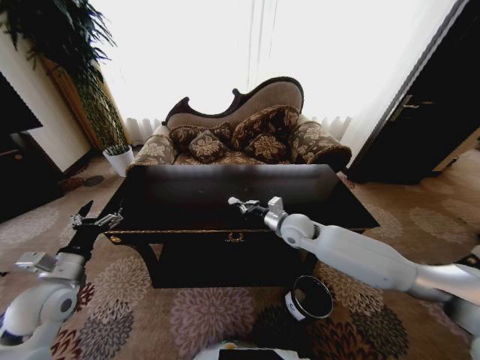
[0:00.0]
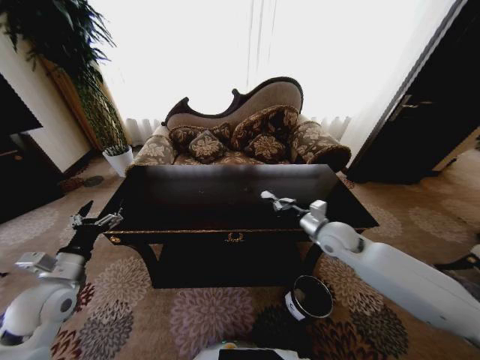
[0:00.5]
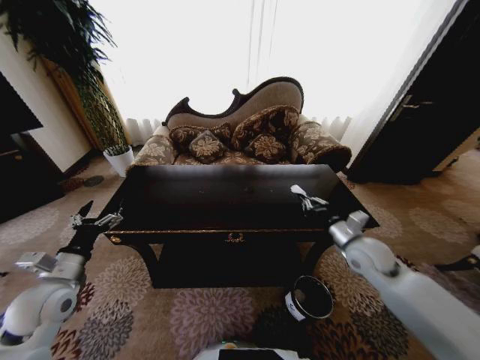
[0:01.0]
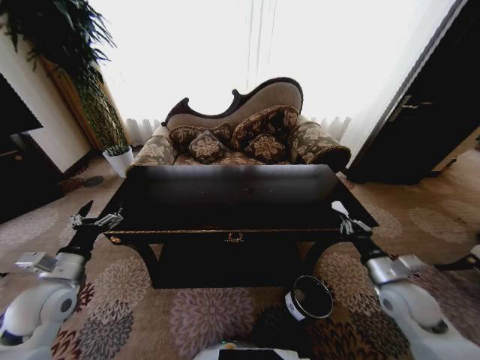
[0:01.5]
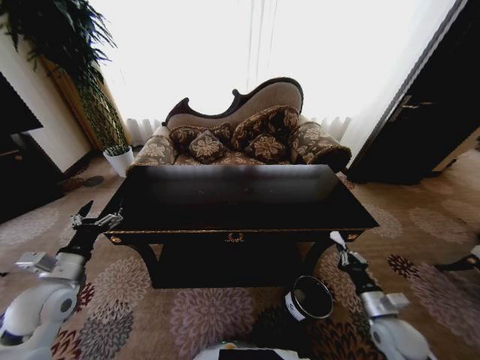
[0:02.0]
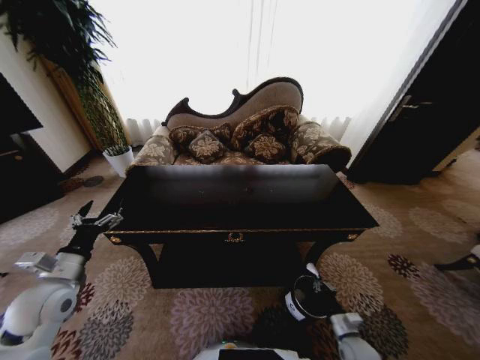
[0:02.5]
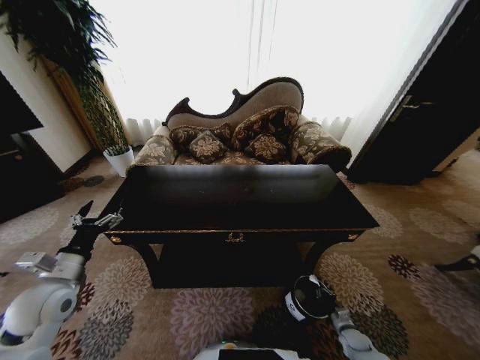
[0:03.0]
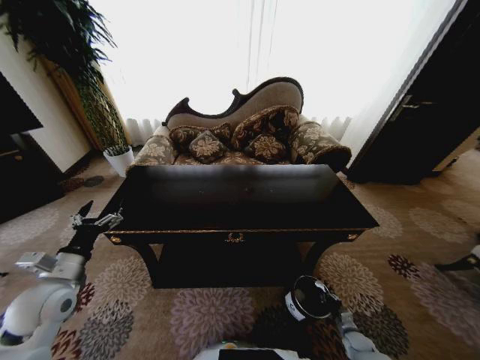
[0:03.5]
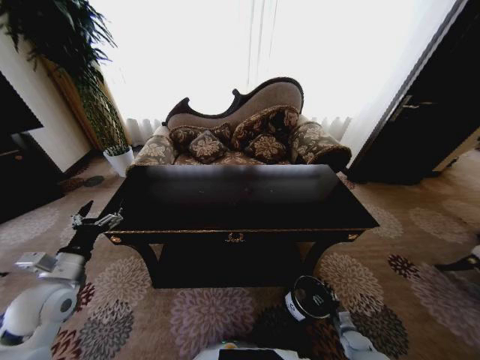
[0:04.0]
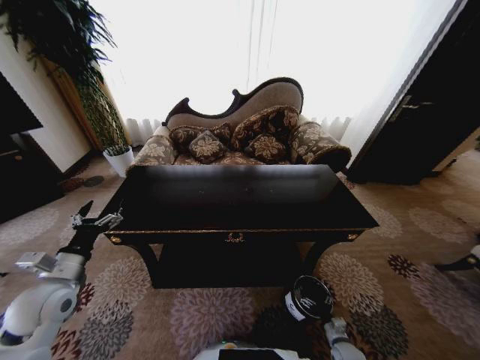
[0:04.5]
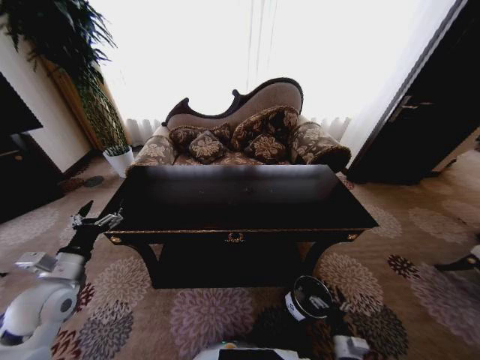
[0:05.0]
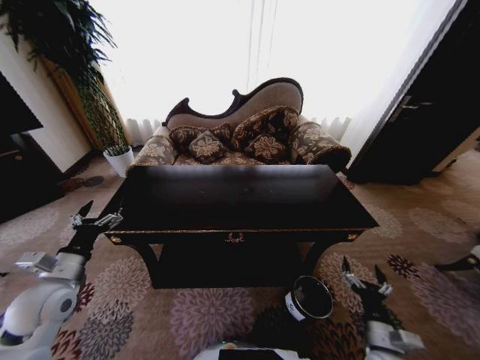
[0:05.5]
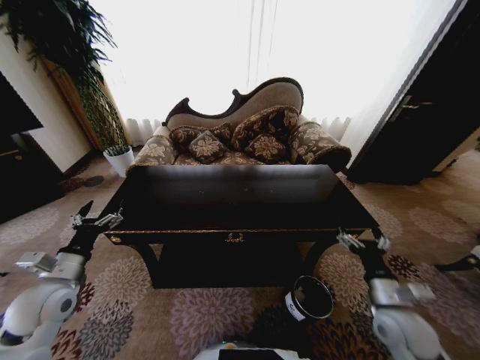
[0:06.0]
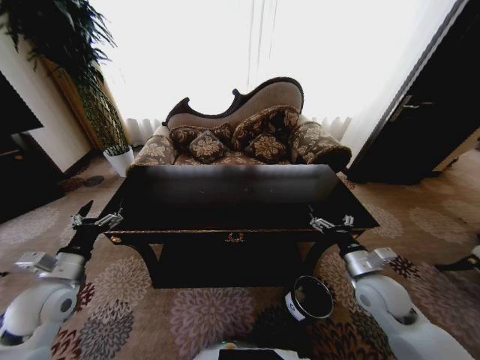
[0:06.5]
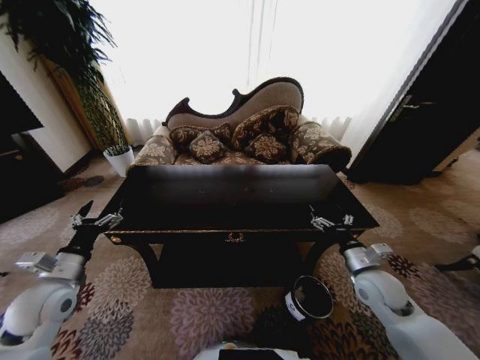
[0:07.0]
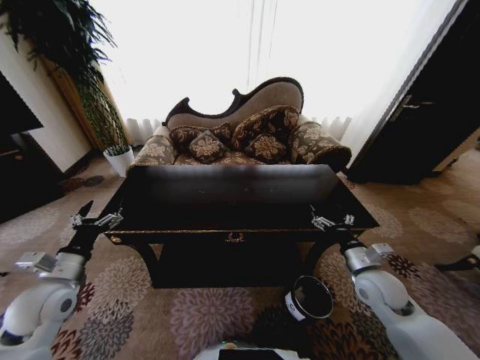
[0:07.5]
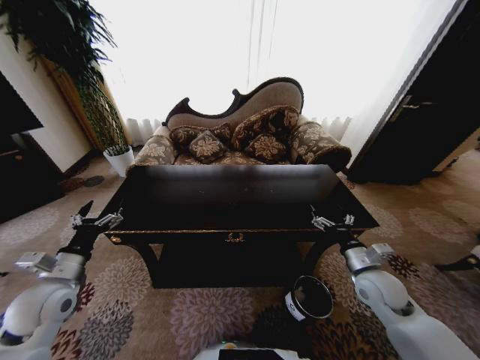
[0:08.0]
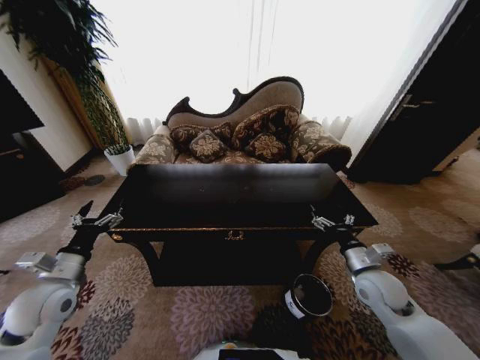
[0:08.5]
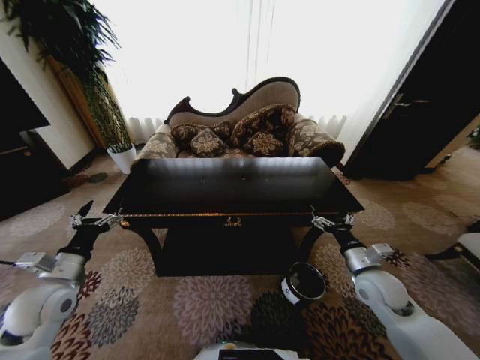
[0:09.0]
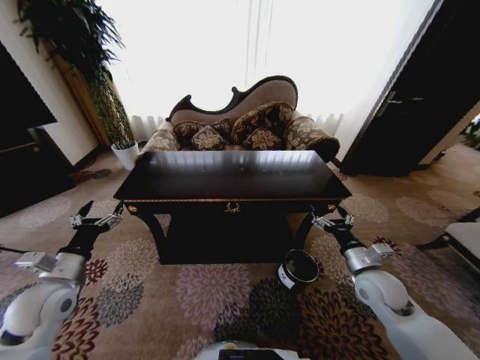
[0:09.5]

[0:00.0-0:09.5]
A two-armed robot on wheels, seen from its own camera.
Task of the whole recording: Move to the front of the table and place the trash on the table into the trash bin.
0:00.0 to 0:02.0: The right gripper heads backward, to the right and downward, covering some 35 cm.
0:02.0 to 0:04.0: The right gripper shifts some 25 cm downward, and opens up.
0:04.0 to 0:05.5: The right gripper moves upward and to the left, approximately 25 cm, and opens.
0:05.5 to 0:07.5: The right gripper is displaced forward and upward by some 20 cm.

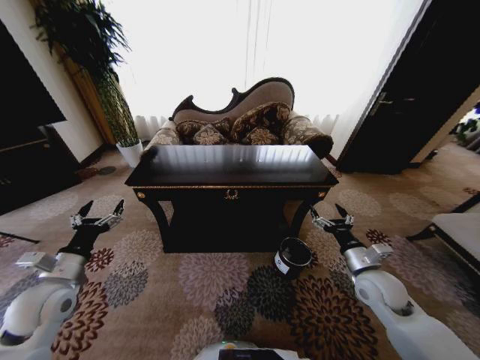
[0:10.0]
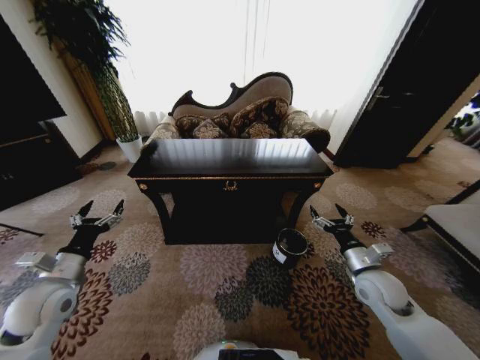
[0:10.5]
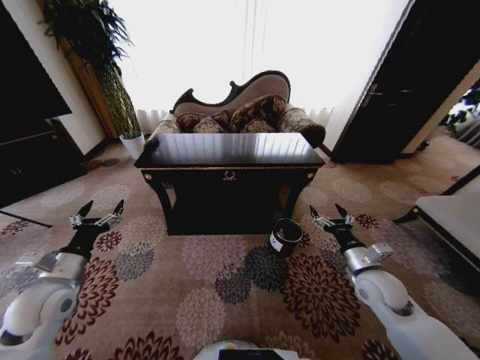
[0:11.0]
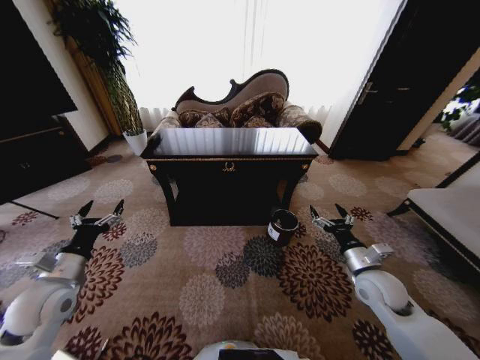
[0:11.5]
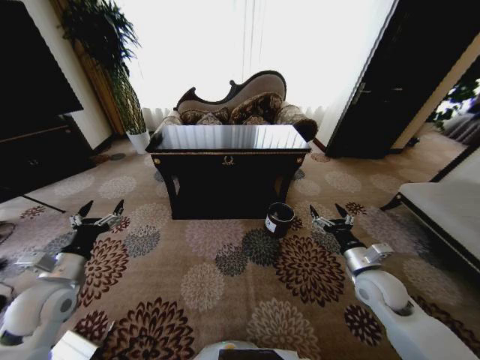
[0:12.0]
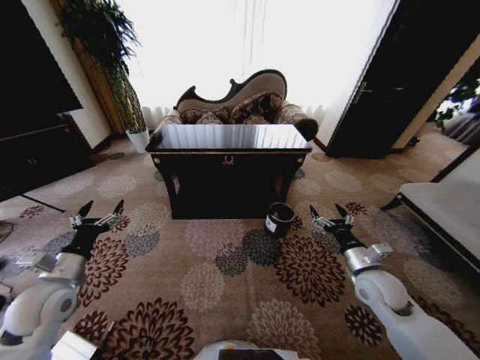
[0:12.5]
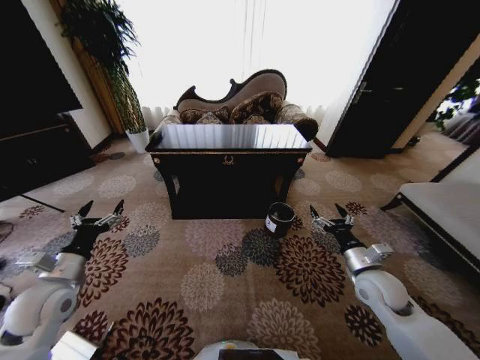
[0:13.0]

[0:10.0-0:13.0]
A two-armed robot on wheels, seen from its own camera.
Task of the whole recording: Move to the front of the table and place the trash on the table into the trash bin.
0:11.5 to 0:13.0: The two grippers keep their place.

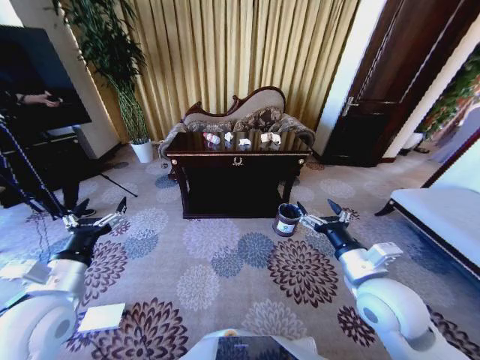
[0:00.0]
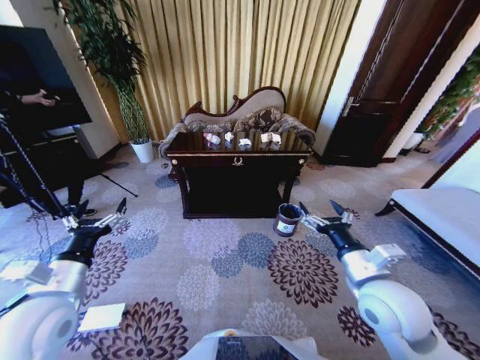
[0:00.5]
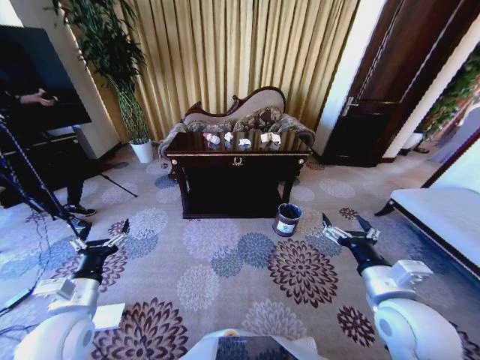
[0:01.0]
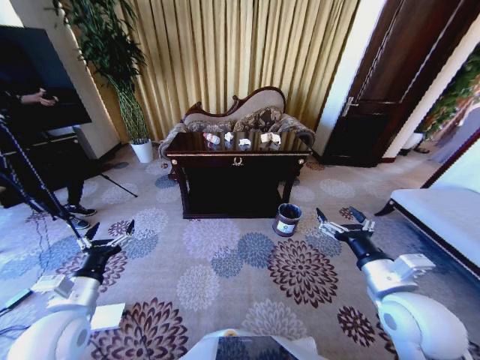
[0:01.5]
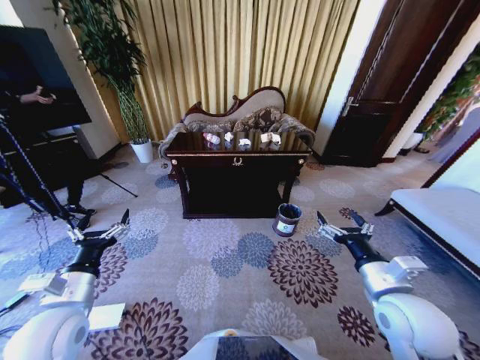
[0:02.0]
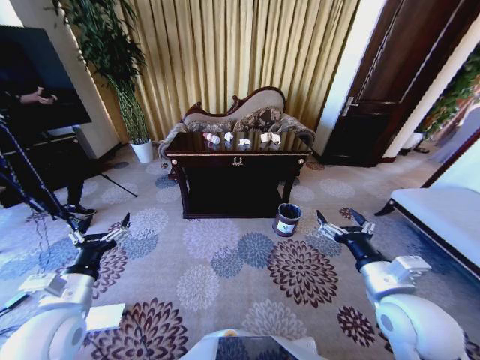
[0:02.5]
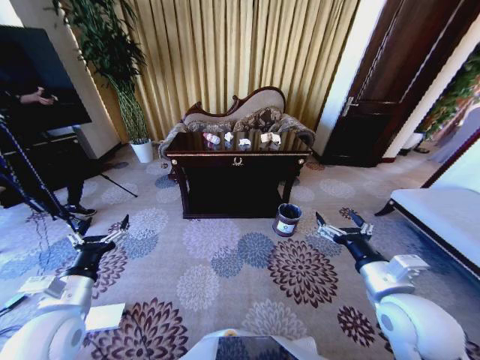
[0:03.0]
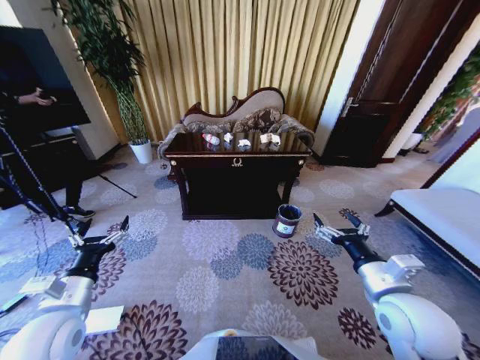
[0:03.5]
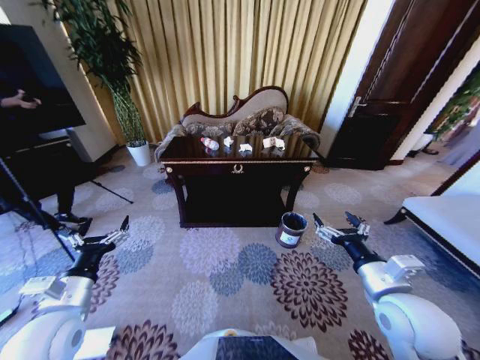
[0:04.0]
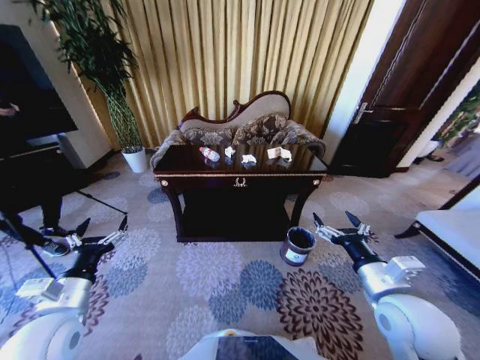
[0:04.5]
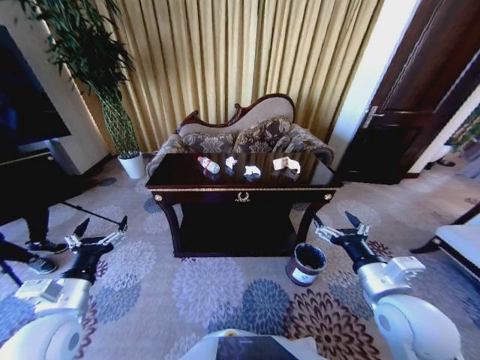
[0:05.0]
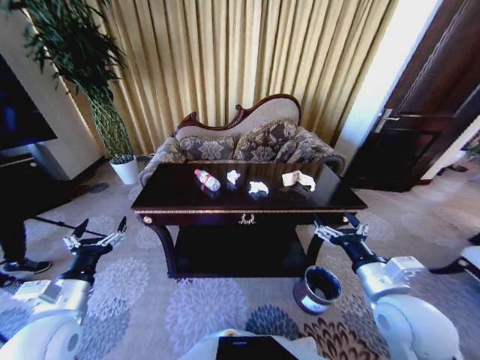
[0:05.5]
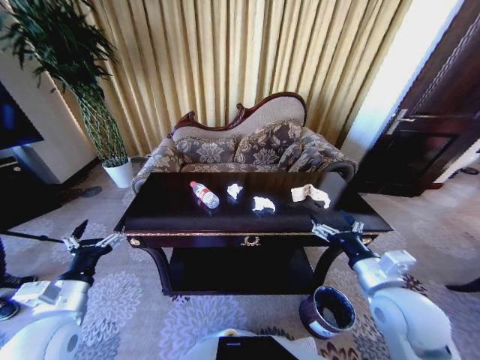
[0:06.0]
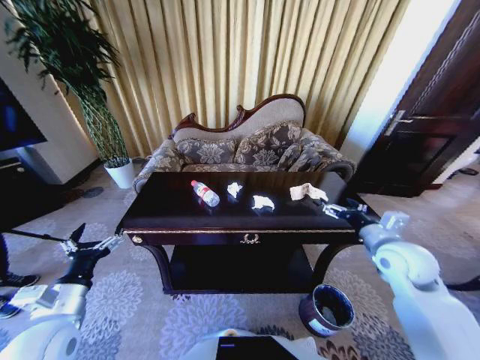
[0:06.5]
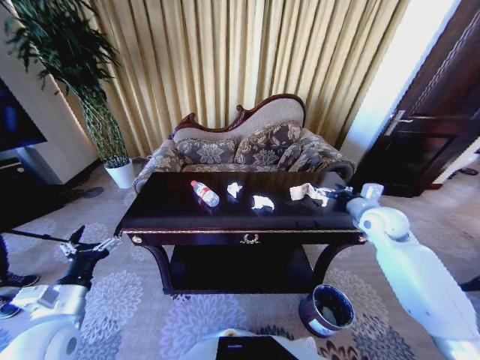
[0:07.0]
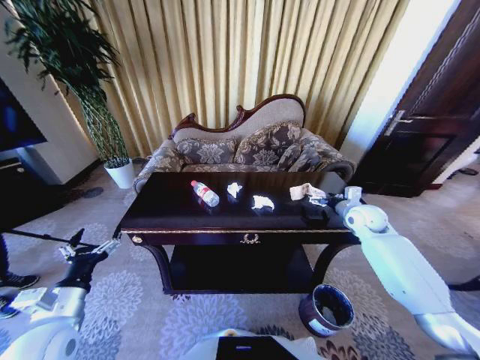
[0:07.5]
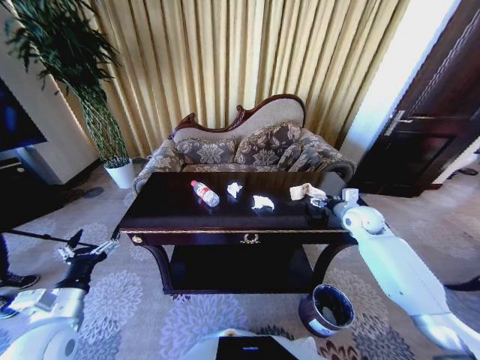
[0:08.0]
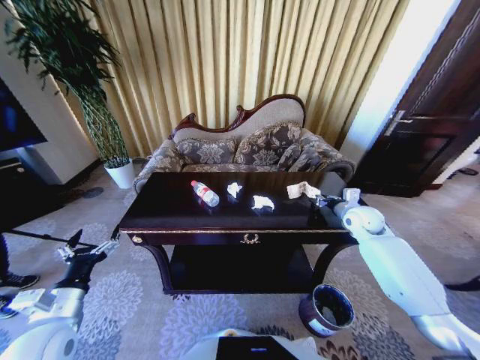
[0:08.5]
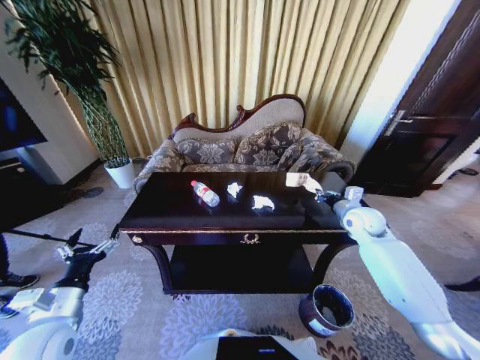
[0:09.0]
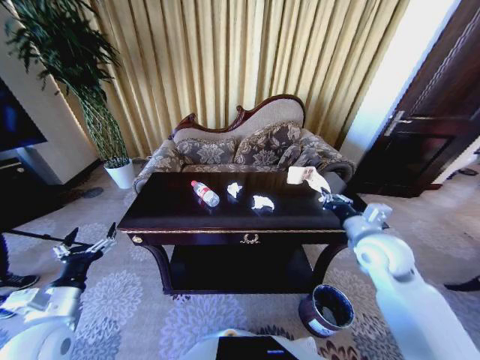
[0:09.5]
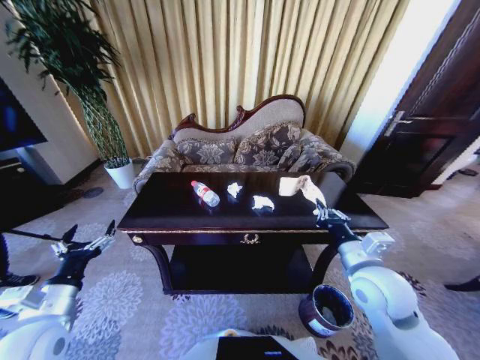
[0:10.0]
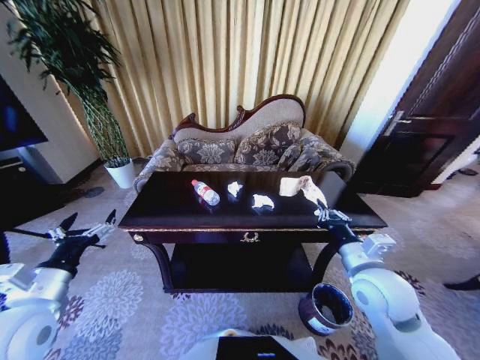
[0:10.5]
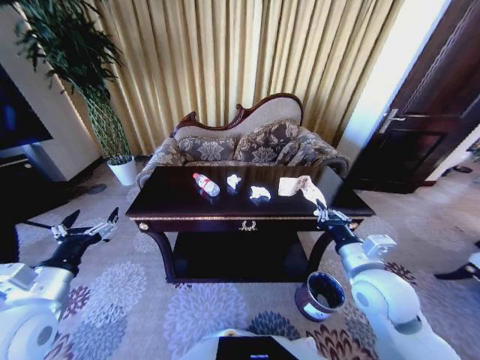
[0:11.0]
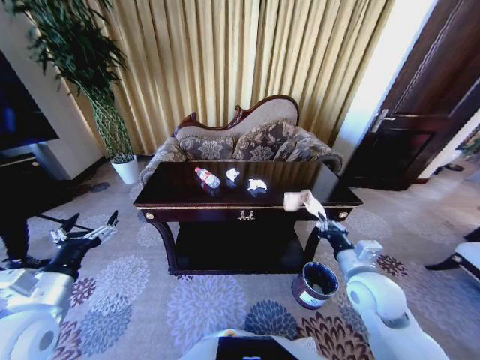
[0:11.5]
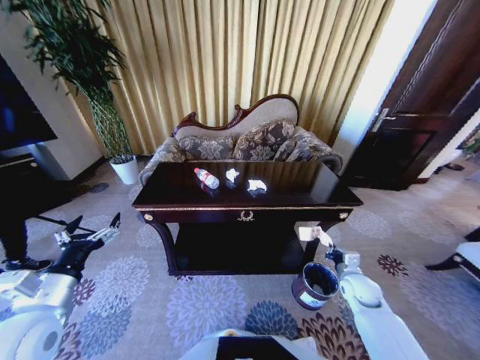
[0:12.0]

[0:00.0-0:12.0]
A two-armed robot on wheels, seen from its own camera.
Task of the whole recording: Move to the front of the table and place the trash on the table into the trash bin.
0:06.0 to 0:08.0: The right gripper travels forward and to the right by approximately 30 cm.
0:08.0 to 0:10.0: The right gripper heads backward and to the left, covering roughly 25 cm, and closes up.
0:10.0 to 0:12.0: The right gripper moves downward and to the right, some 25 cm.

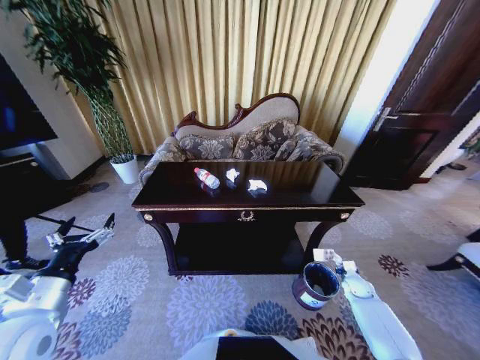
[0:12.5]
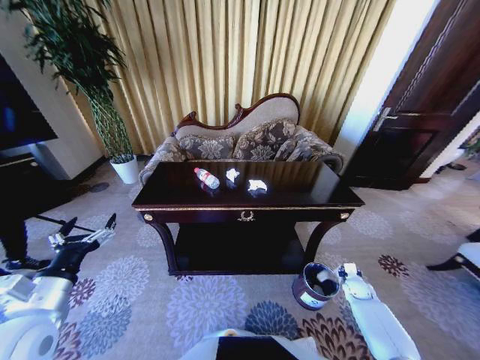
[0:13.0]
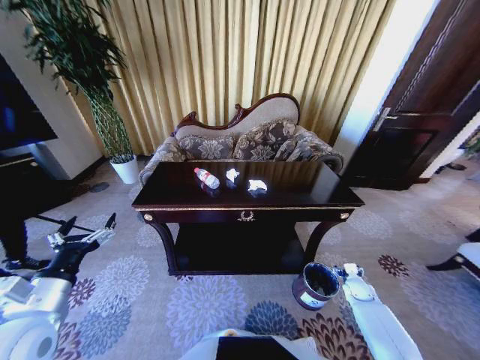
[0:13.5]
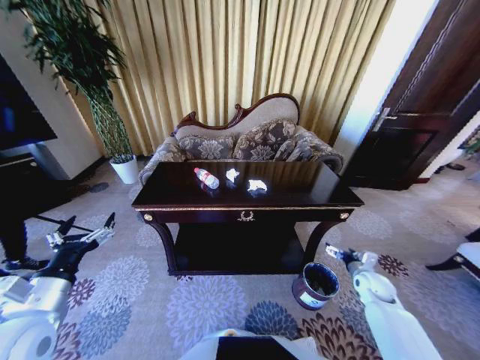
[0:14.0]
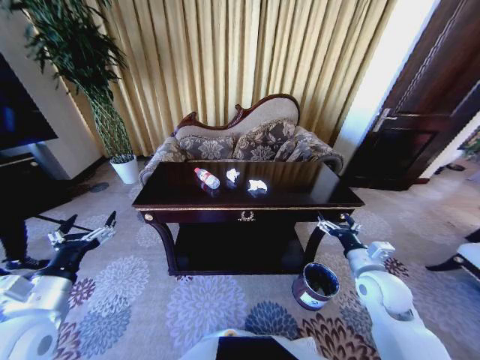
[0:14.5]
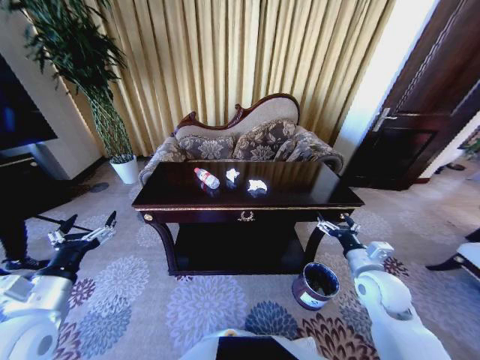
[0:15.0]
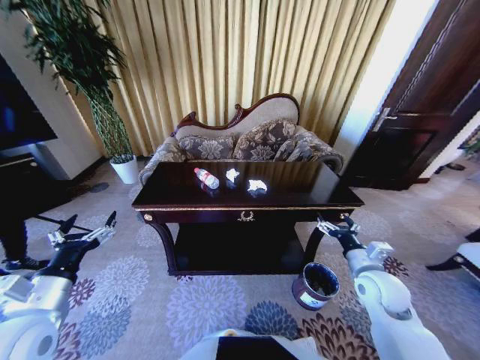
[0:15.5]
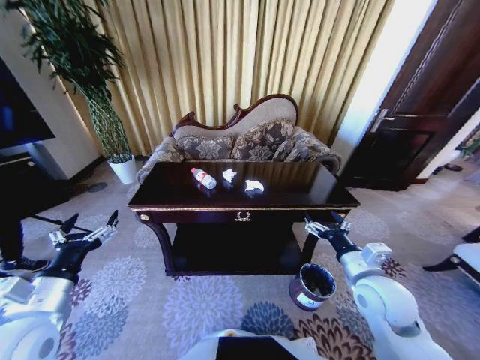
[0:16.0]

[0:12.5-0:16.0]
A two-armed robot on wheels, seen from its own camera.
Task of the whole recording: Move to the front of the table and place the trash on the table into the trash bin.
0:12.5 to 0:14.5: The right gripper moves upward and to the left, about 25 cm, and opens its fingers.
0:14.5 to 0:16.0: The right gripper ends up about 5 cm from where it was.
